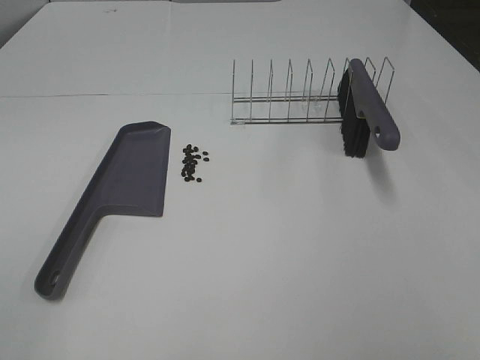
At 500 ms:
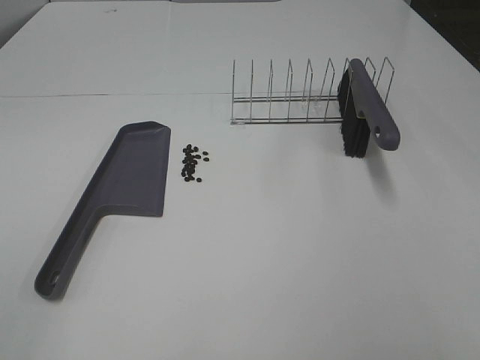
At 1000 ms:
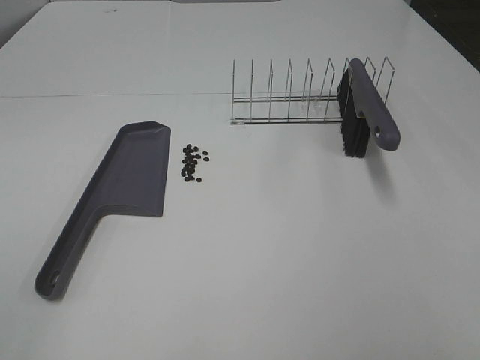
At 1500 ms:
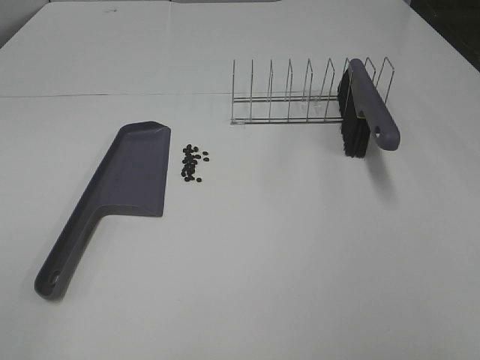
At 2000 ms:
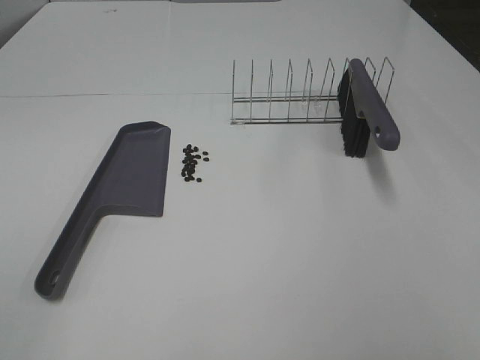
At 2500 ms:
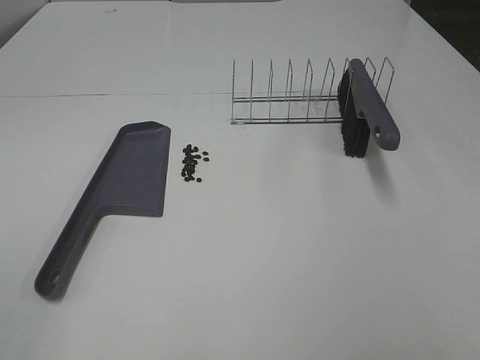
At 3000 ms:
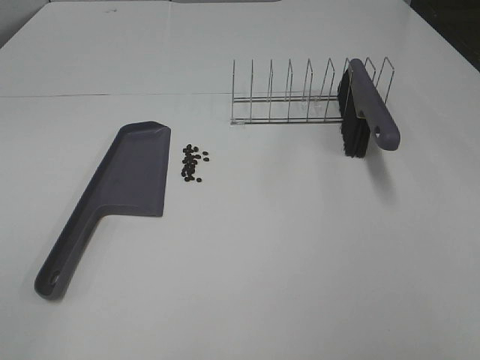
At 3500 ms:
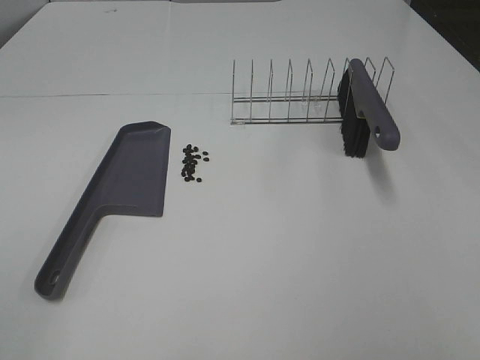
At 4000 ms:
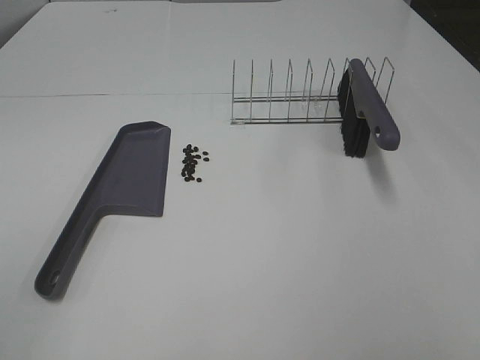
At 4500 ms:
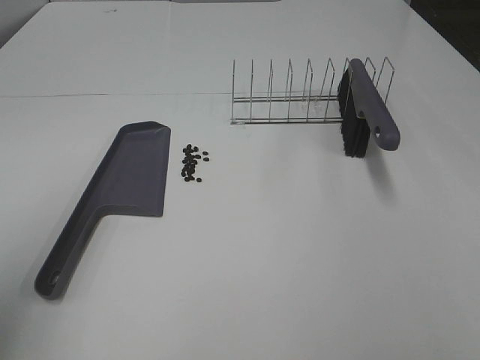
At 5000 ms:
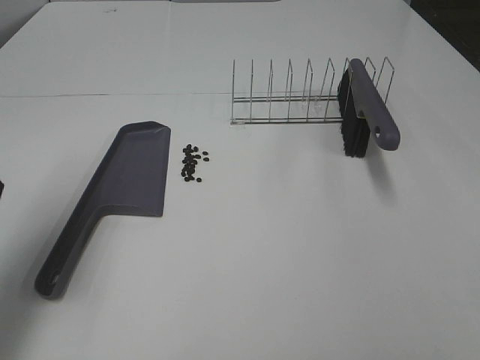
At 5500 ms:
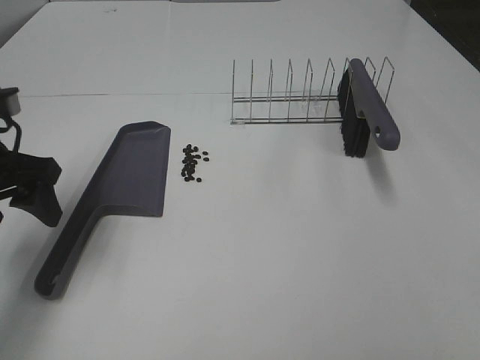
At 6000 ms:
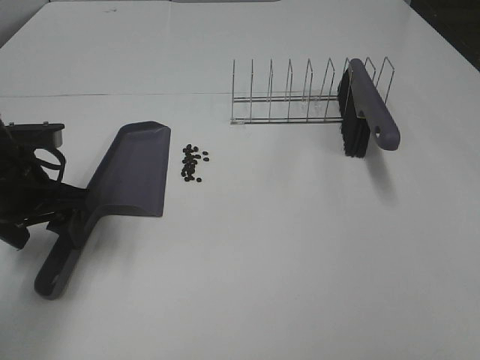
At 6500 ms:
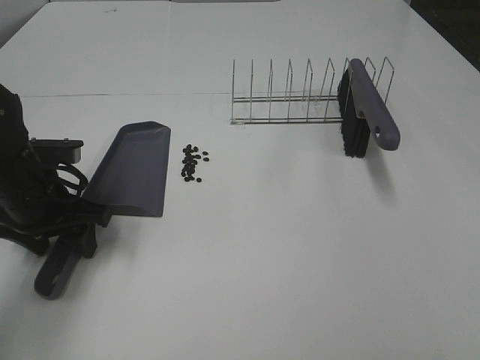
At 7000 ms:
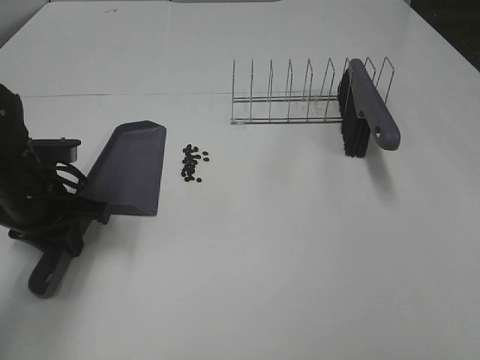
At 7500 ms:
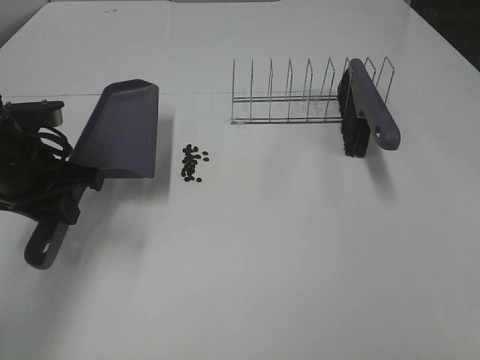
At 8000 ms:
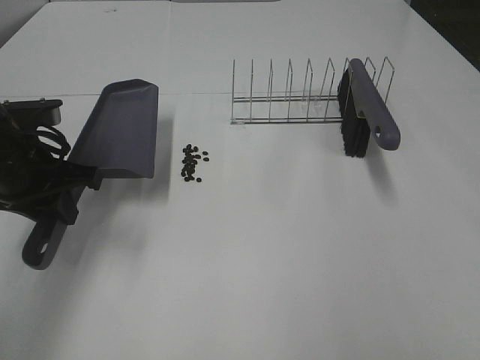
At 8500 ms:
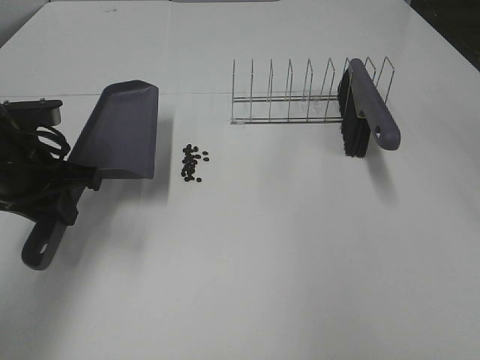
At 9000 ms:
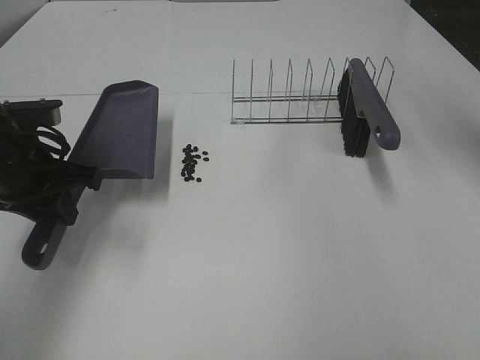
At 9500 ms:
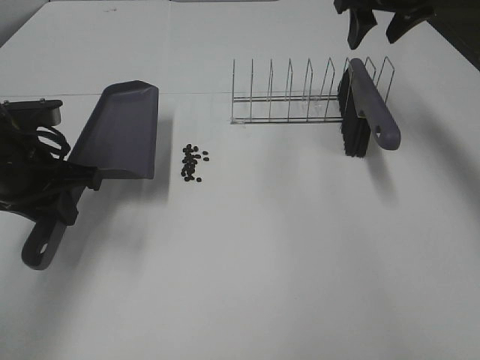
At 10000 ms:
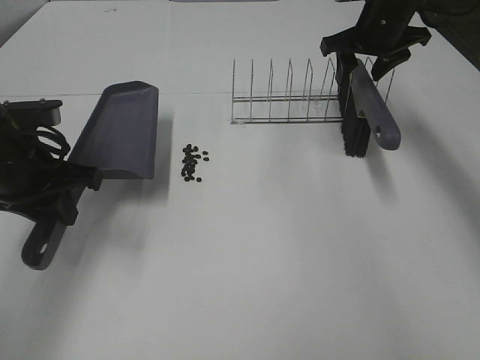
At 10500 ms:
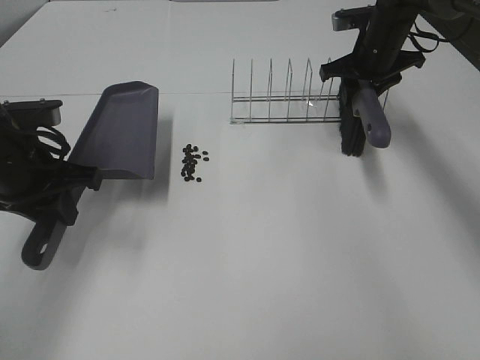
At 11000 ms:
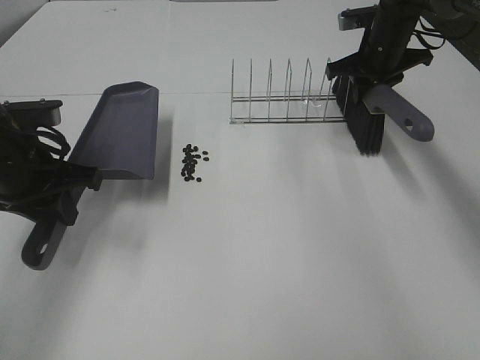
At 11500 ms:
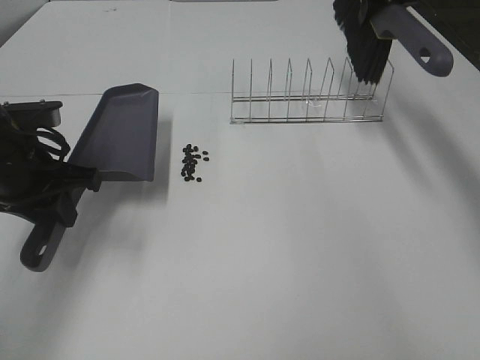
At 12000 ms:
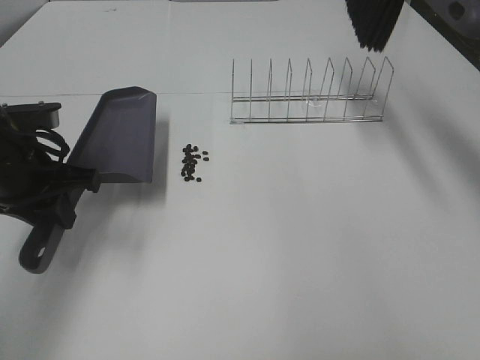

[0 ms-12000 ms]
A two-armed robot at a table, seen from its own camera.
Task of the whole recording: Sweep Coffee Bean.
Step, 0 ms to 6500 ms: Left hand: grab the dustpan.
Step, 8000 ms to 10500 ms: Right hand:grab the broom.
0 ms to 2000 ms: Neither gripper changes place.
4000 ms to 6000 ms: The left gripper shifts some 30 cm forward and downward.
6000 ms to 8000 ms: The left gripper closes up, while the right gripper goes roughly 10 cm forward.
8000 ms to 10000 ms: The right gripper heads forward, covering roughly 40 cm.
10000 ms to 12000 ms: The right gripper shifts approximately 15 cm upward, and closes up.

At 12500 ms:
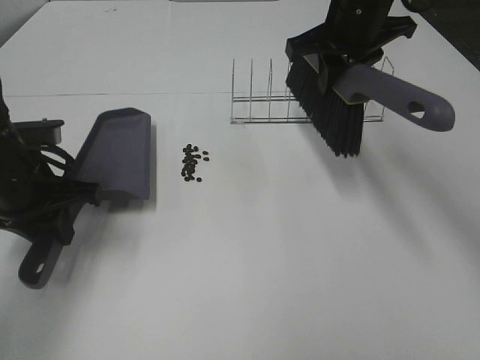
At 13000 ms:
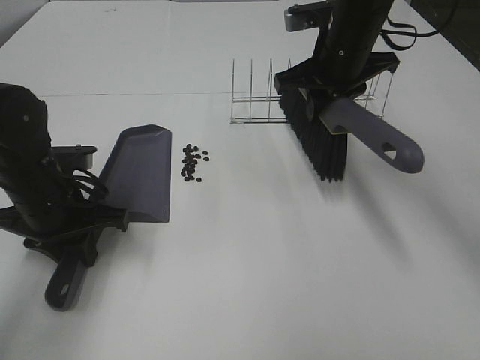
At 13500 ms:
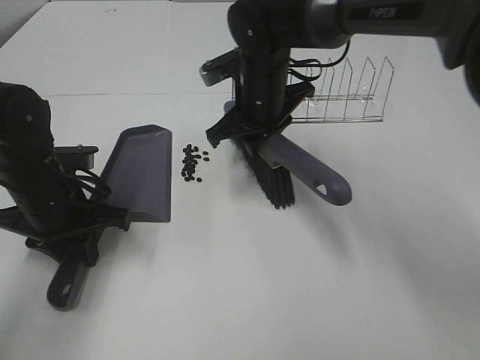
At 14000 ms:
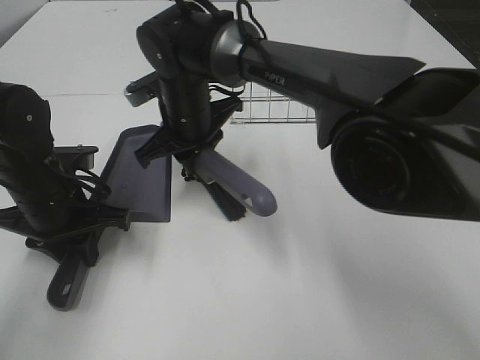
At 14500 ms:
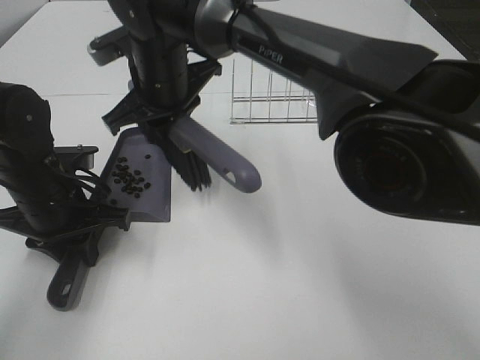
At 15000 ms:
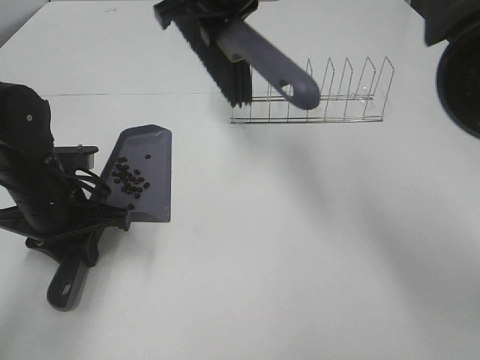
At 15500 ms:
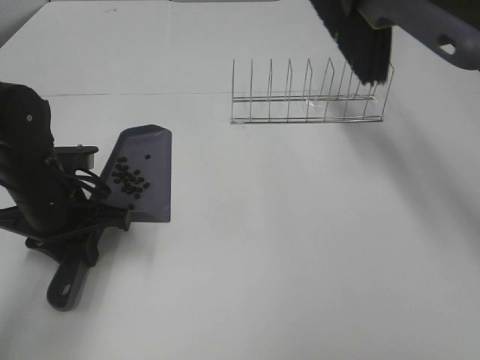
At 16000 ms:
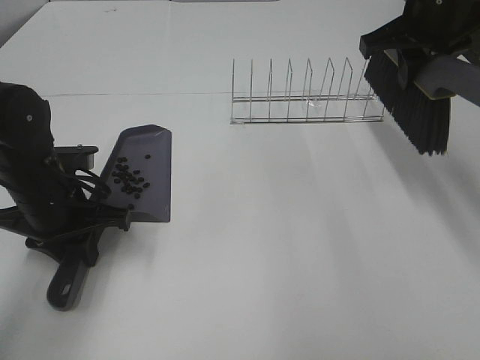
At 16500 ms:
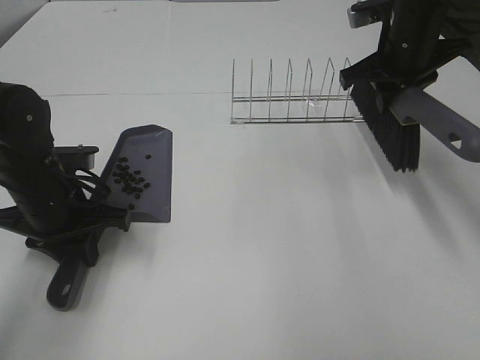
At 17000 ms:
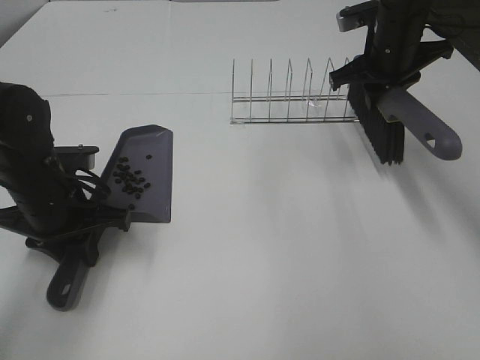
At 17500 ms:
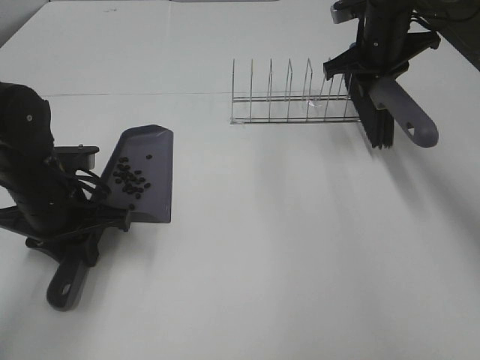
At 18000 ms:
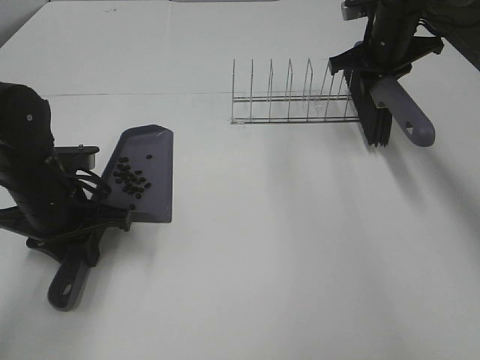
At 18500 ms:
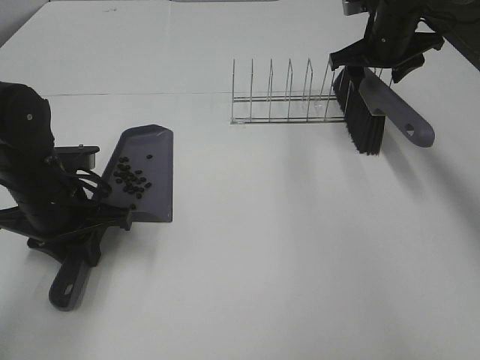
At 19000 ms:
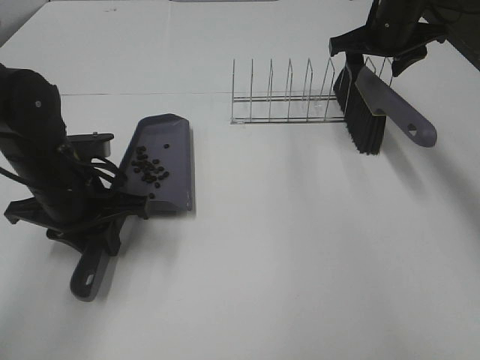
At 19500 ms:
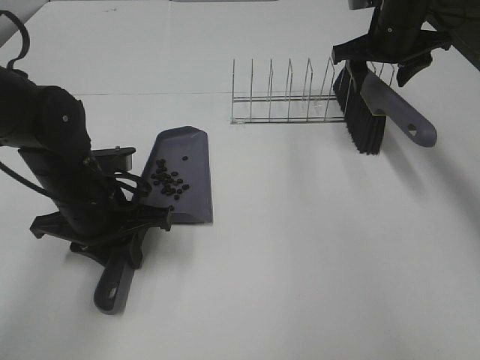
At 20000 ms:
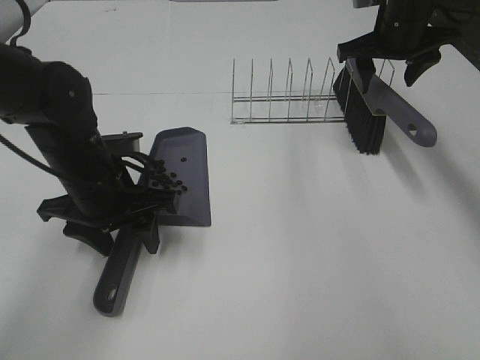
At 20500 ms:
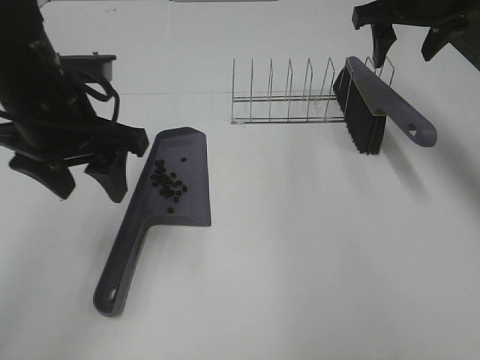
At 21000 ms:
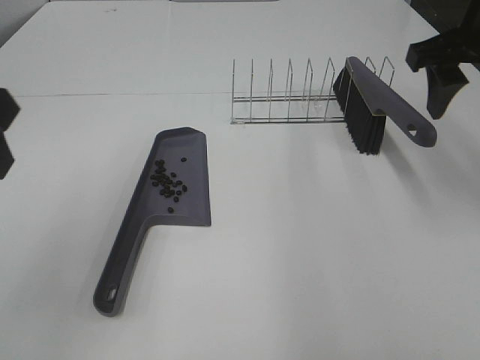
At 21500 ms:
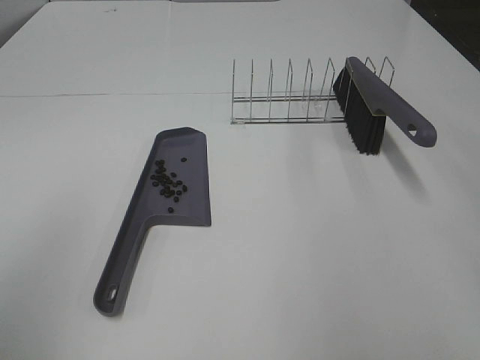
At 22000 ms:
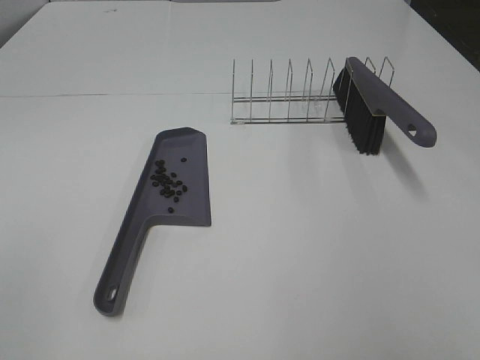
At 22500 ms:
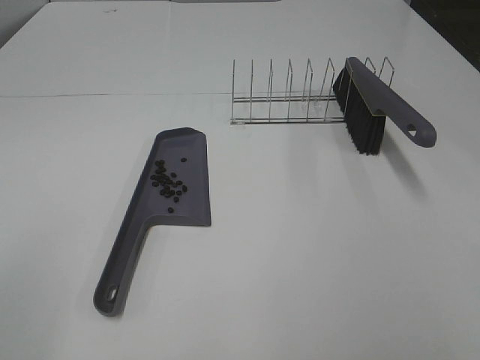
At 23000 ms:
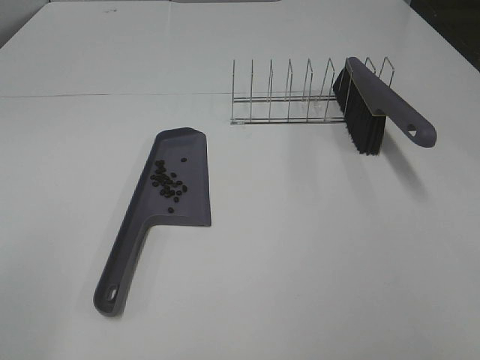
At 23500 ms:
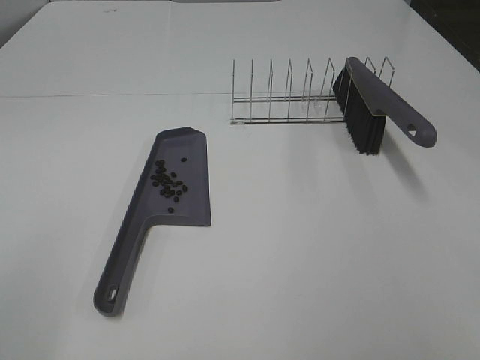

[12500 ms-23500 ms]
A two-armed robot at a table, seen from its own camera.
Task of the whole recording: Sweep Coffee Bean.
Step, 12500 ms to 14500 ms: Right hand:sweep the coffee beans into the dustpan.
Step, 15000 ms to 18500 ms: Right hand:place the broom on the rack.
Step, 19000 ms to 20000 ms: Left hand:place the dustpan on the table.
12500 ms to 14500 ms: The right gripper moves to the left, approximately 20 cm.
14500 ms to 16000 ms: The right gripper shifts some 30 cm to the right.
16000 ms to 18000 ms: The right gripper is displaced forward and downward by approximately 15 cm.
18000 ms to 20000 ms: The left gripper moves to the right, roughly 5 cm, and opens its fingers, while the right gripper opens.
20000 ms to 21500 ms: The right gripper moves backward, some 30 cm; the left gripper heads backward, upward and to the left, covering roughly 35 cm.

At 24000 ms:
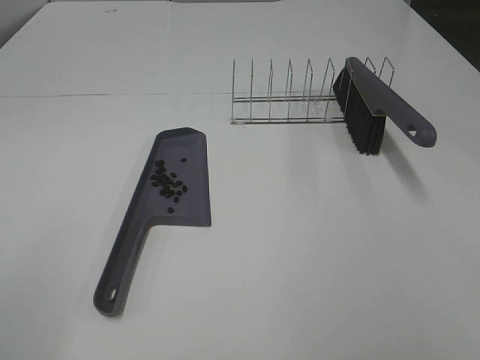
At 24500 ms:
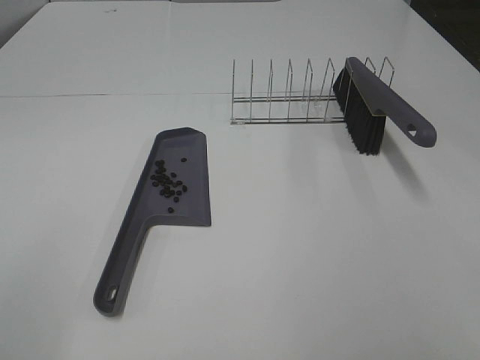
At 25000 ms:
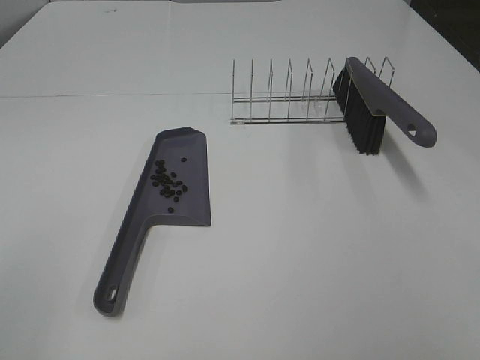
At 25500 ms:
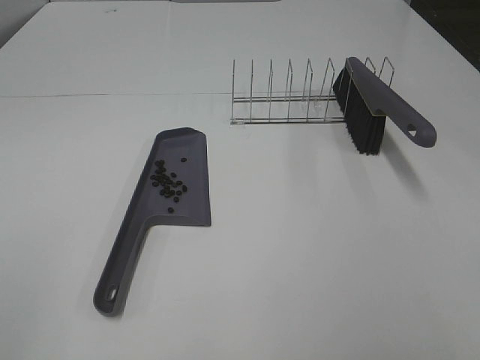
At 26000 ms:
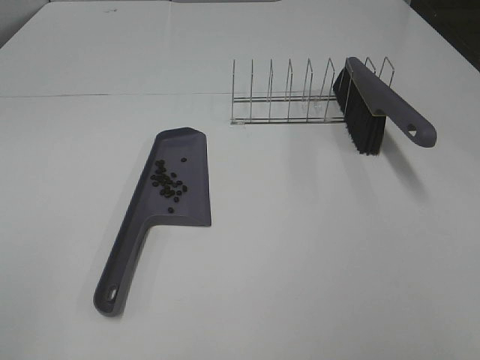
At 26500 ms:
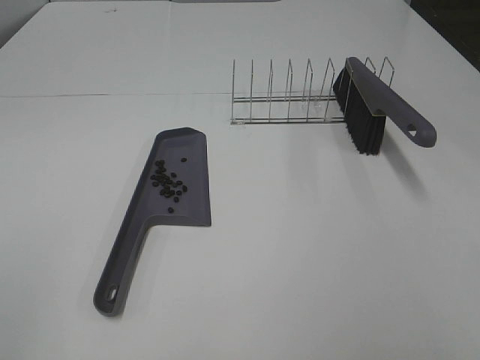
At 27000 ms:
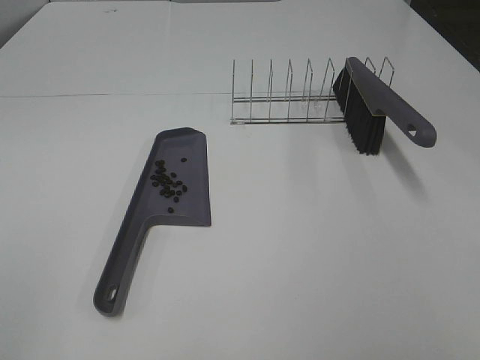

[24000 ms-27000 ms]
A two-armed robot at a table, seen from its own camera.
Task of the whole recording: Sweep Coffee Bean.
25500 ms to 27000 ms: The two grippers keep their place.
